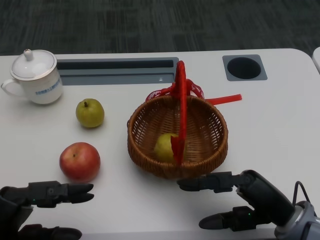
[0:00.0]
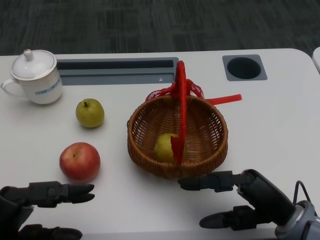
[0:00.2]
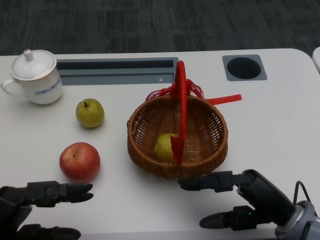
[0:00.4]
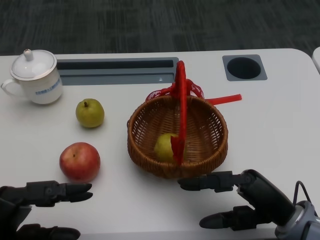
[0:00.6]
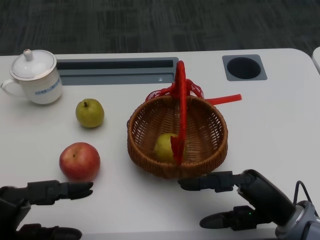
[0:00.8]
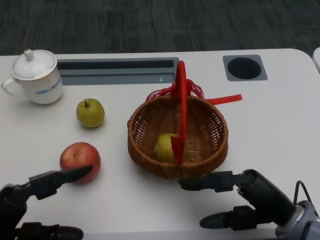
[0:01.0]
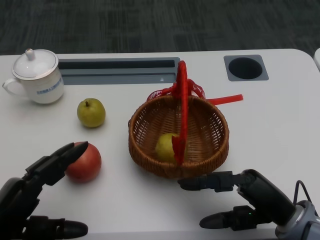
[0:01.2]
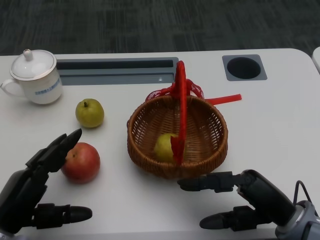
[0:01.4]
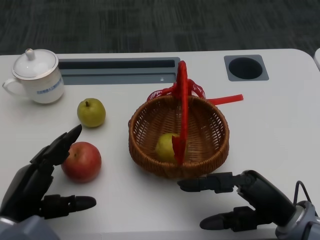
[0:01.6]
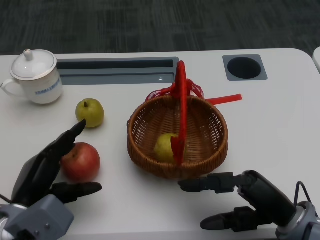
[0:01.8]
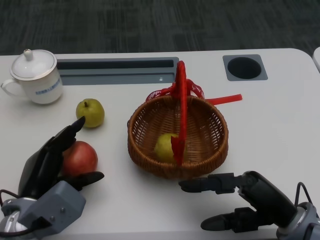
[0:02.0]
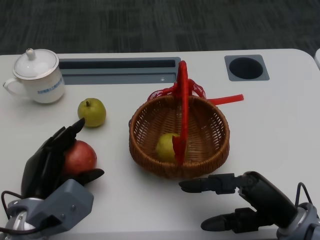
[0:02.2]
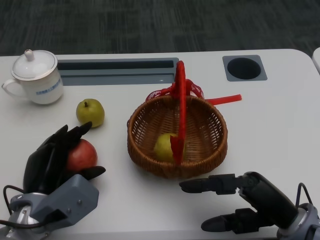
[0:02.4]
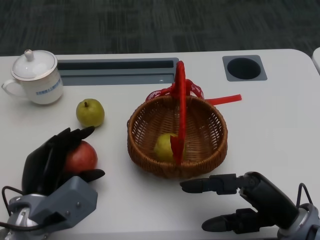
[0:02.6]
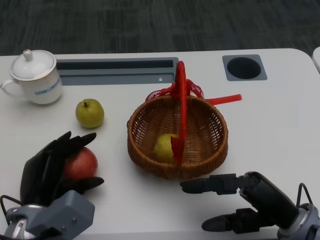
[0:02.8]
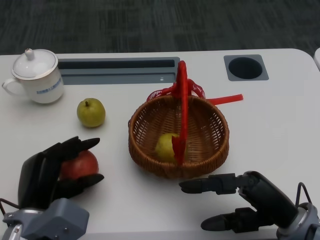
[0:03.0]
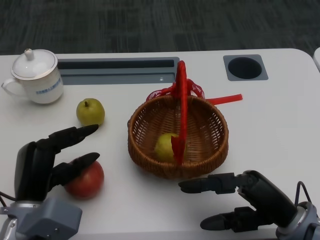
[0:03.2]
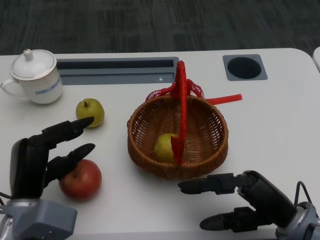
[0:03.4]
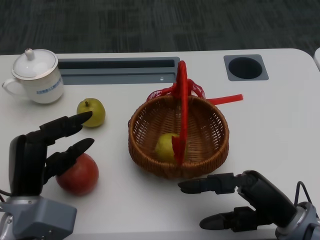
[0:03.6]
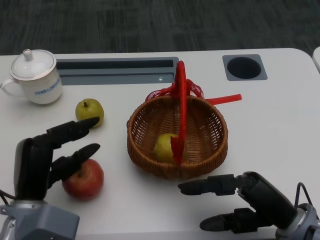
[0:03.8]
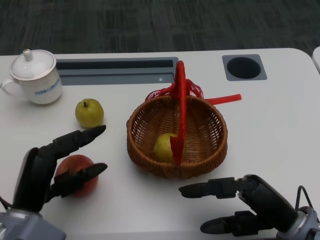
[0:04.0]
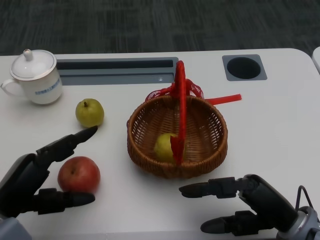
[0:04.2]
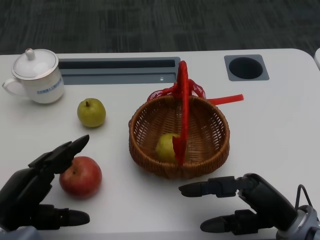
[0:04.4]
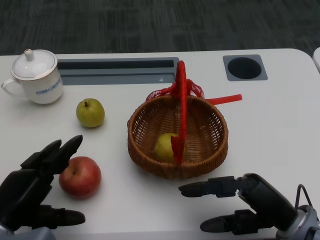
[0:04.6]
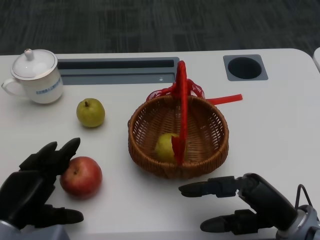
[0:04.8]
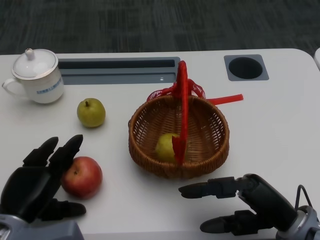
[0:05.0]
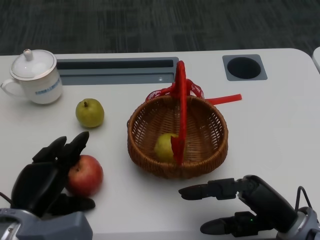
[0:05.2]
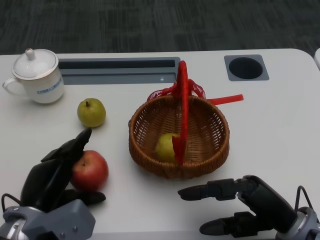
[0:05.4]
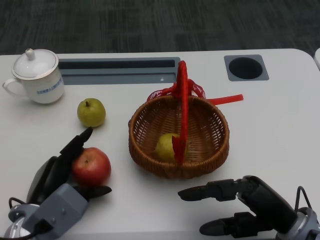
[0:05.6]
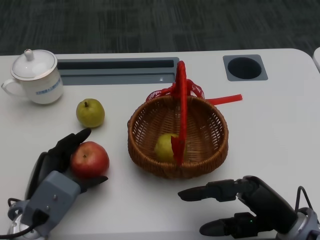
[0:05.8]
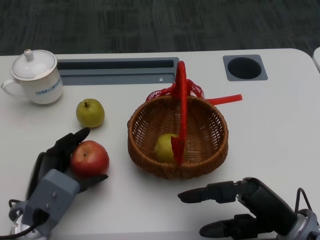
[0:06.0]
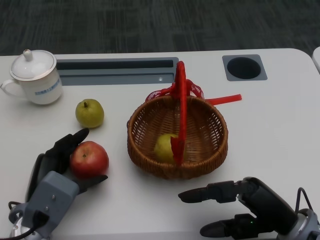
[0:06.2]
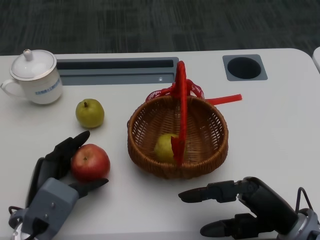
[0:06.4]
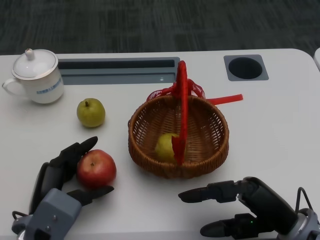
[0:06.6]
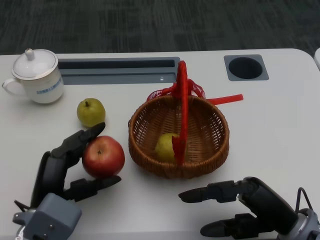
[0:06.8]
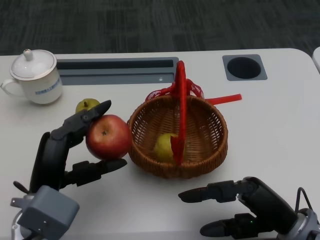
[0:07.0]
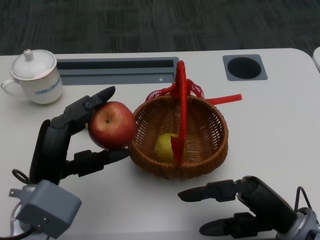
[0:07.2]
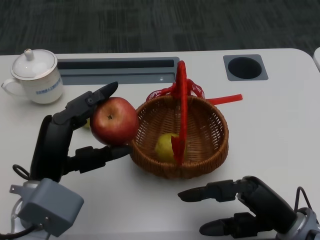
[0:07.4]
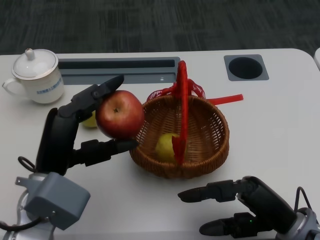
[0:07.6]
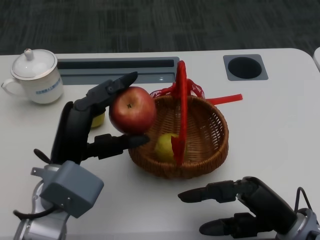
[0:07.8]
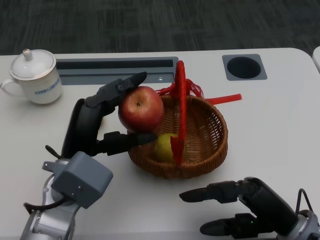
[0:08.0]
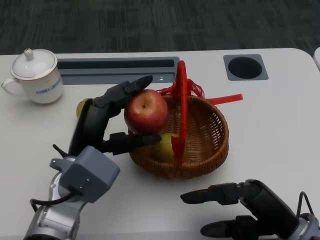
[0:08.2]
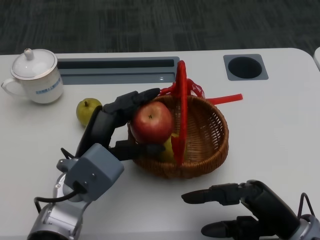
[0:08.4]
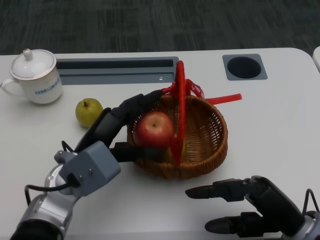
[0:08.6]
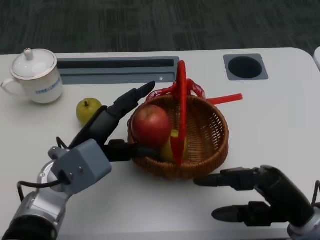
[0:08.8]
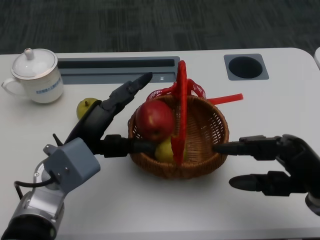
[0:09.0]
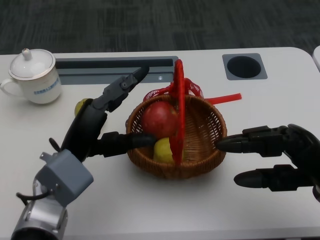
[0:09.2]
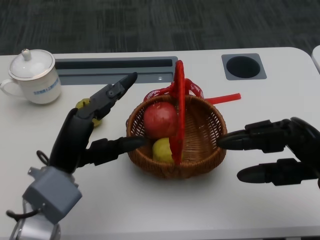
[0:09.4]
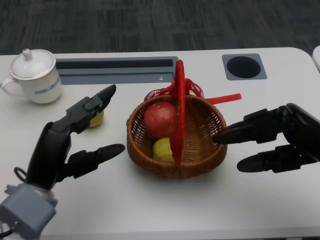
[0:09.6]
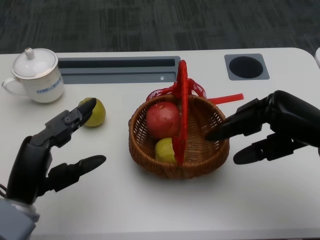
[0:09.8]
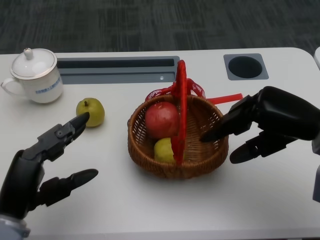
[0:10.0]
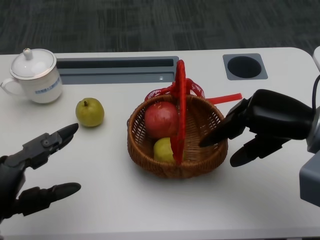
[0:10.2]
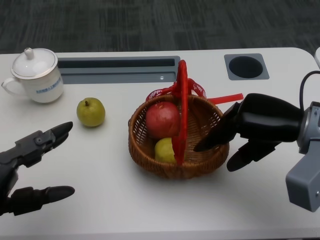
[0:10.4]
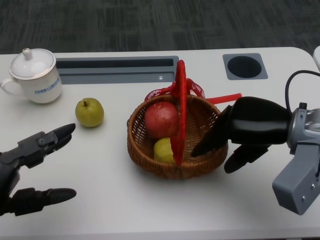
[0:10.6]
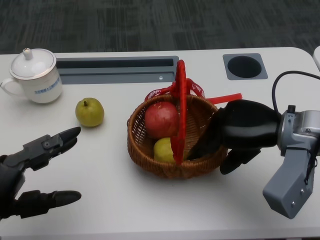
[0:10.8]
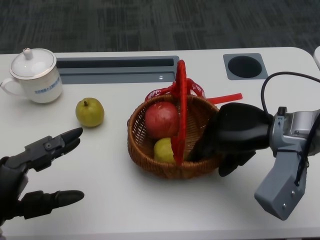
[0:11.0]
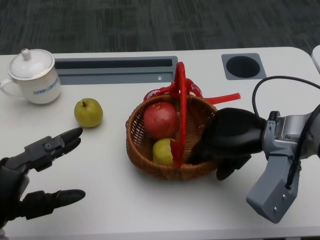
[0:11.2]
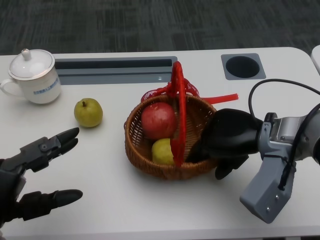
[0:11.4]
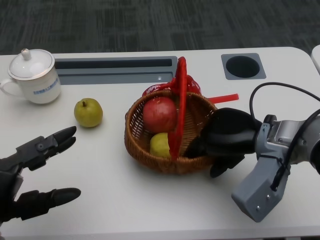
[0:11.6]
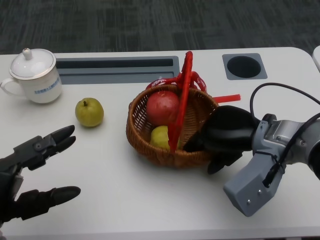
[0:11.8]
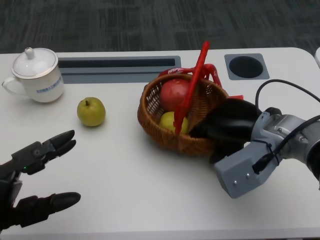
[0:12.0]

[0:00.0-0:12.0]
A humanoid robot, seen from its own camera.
Step, 0:00.8 to 0:04.6: Grasp the apple with the left gripper.
Step, 0:05.0 to 0:07.4: Place the apple into the basket with the left gripper.
Step, 0:07.6 to 0:09.0: Grasp the basket with the right gripper.
Step, 0:09.4 to 0:10.8: Move the basket to the front of the table with the right gripper.
0:03.0 to 0:04.4: The left hand travels to the left by about 5 cm.
0:04.4 to 0:06.0: The left hand travels to the right by approximately 5 cm.
0:06.0 to 0:07.6: The left hand is displaced upward by some 10 cm.
0:07.6 to 0:09.0: The right hand shifts by about 5 cm, while the left hand shifts some 5 cm forward.
0:09.0 to 0:10.4: The right hand goes approximately 10 cm forward and upward. Meanwhile the left hand goes about 15 cm to the left and backward.
0:10.4 to 0:12.0: The right hand shifts approximately 5 cm to the left.

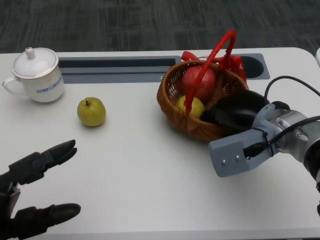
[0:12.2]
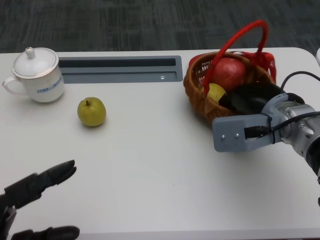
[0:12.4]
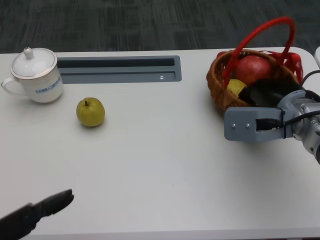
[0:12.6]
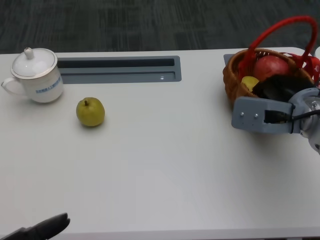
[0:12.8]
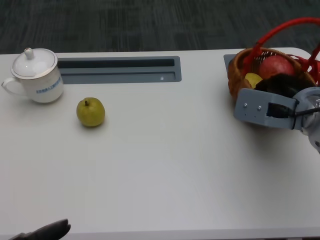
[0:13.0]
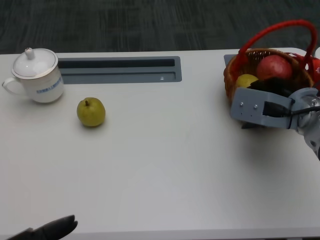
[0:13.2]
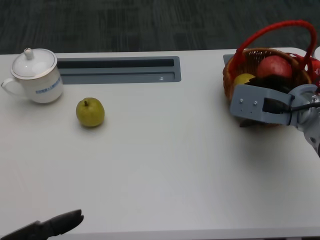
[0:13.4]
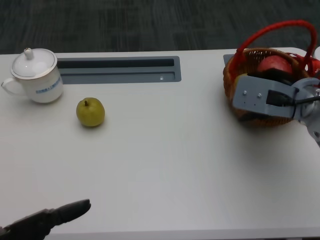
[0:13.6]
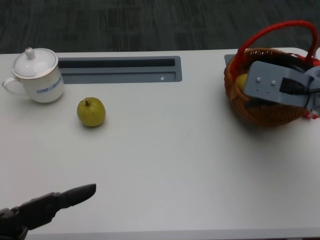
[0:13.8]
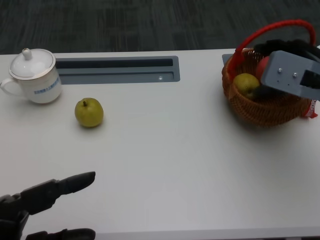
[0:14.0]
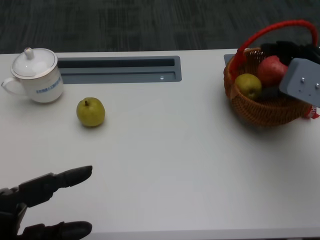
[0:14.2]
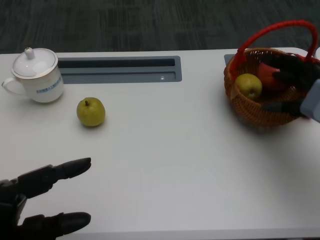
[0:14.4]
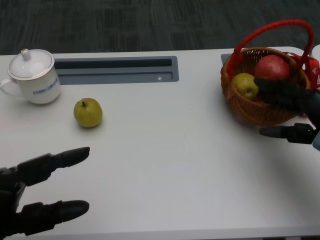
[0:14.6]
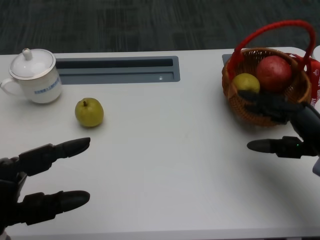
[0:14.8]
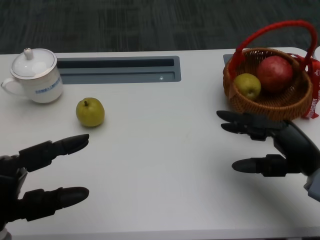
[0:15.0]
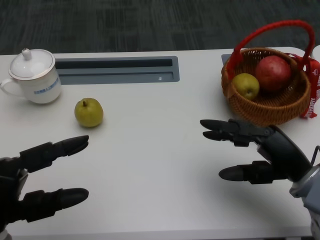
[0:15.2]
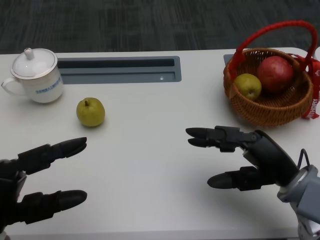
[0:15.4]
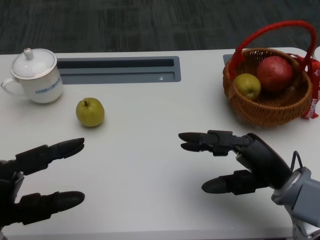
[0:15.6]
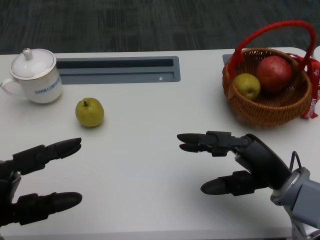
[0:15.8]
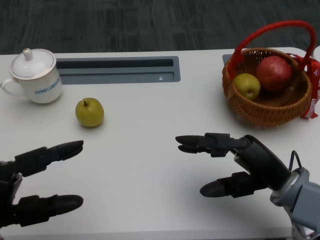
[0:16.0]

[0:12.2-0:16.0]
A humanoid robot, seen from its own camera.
0:12.2 to 0:13.4: The left hand shifts some 10 cm backward.
0:13.4 to 0:14.8: The right hand moves backward and to the right, some 10 cm. The left hand goes approximately 10 cm forward.
0:14.8 to 0:16.0: The right hand goes some 5 cm to the left.

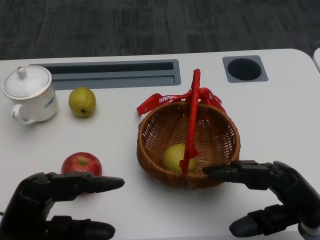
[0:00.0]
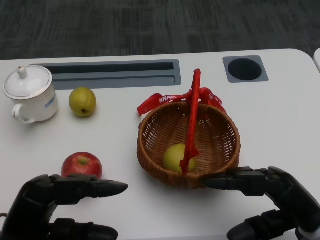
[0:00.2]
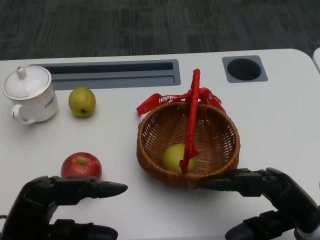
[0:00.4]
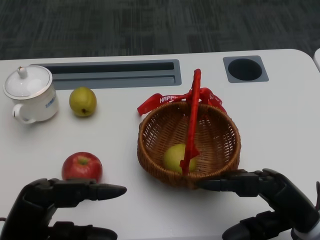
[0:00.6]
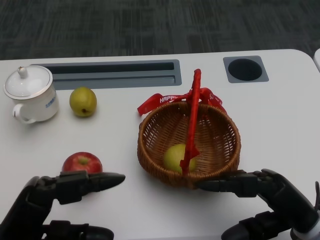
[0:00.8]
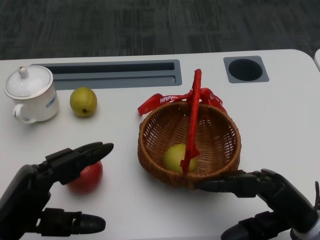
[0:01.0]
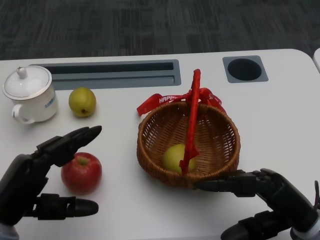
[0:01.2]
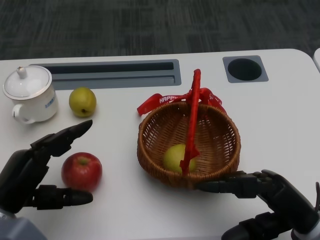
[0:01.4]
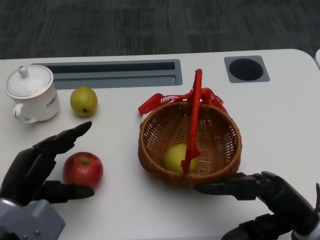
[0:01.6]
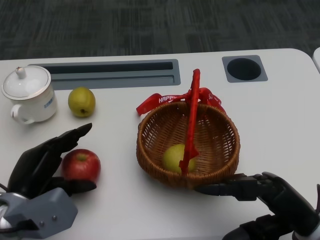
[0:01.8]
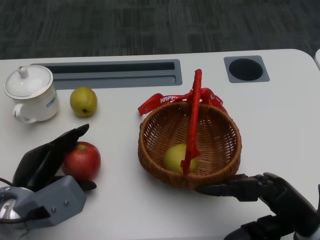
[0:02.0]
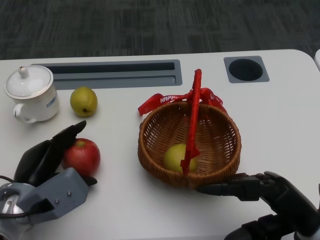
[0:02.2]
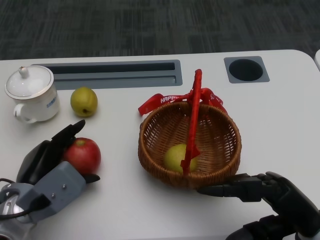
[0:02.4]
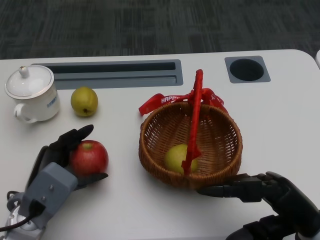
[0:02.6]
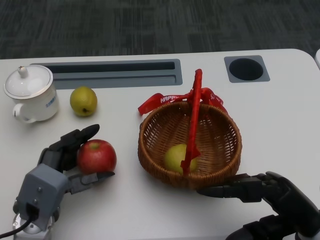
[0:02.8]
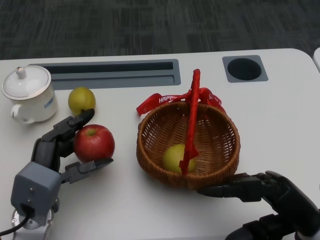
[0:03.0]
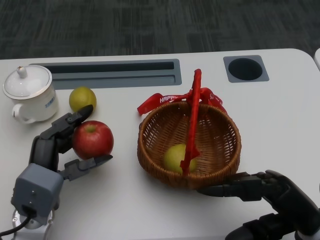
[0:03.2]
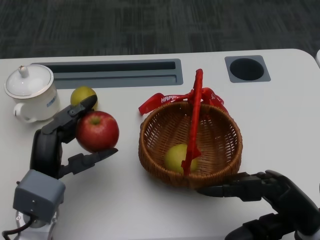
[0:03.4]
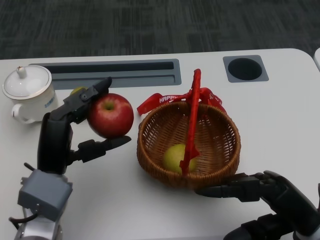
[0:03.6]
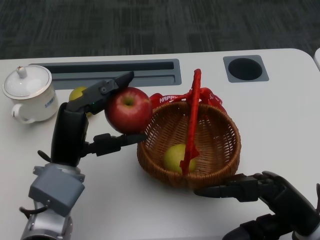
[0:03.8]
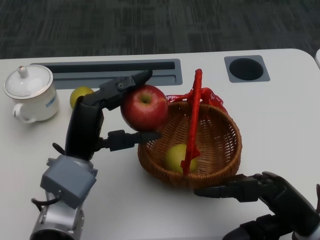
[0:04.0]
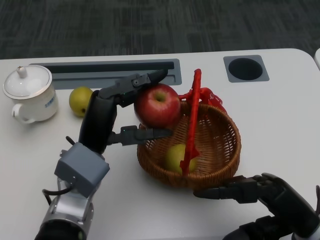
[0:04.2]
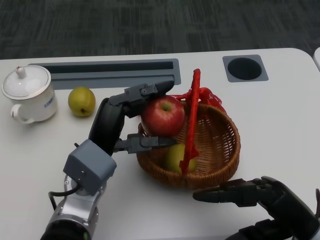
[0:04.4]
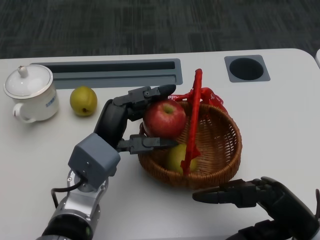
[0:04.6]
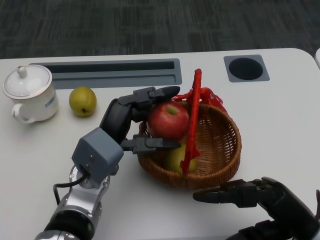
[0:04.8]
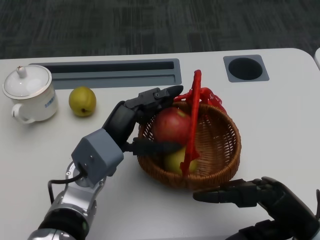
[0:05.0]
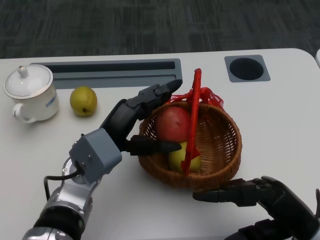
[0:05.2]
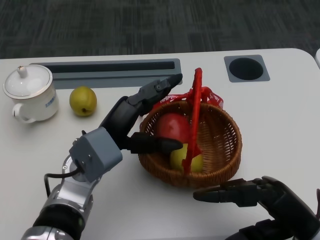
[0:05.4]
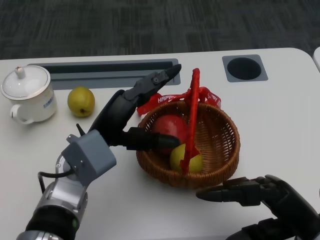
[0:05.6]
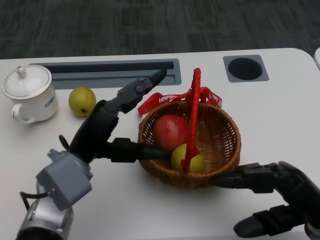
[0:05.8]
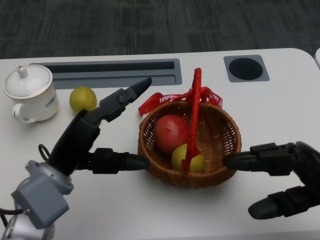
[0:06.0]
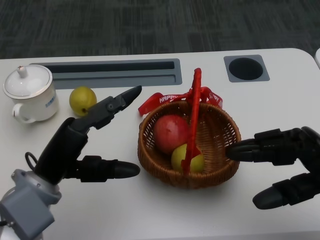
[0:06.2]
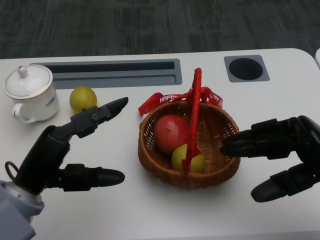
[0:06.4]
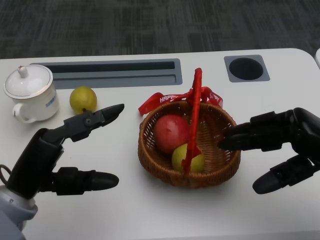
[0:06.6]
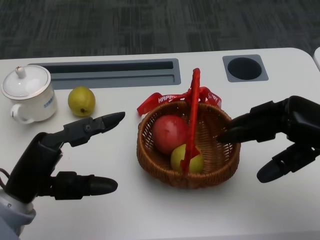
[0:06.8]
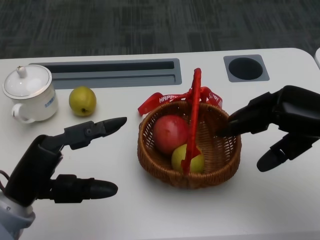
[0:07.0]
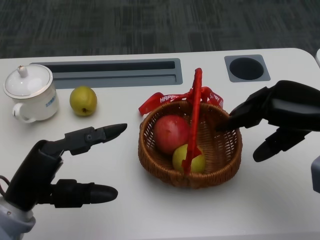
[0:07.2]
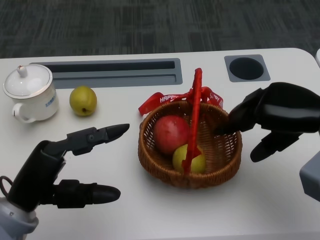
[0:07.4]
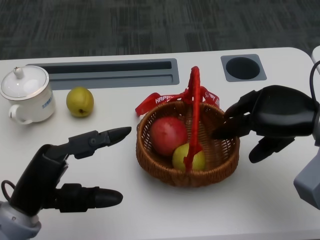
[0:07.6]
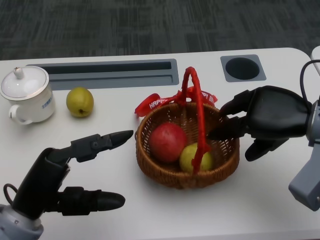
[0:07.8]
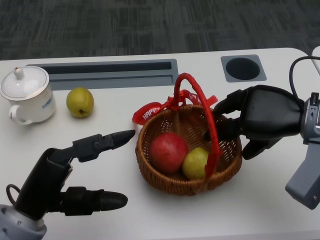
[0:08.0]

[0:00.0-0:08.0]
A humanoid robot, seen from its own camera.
Step, 0:00.6 to 0:02.0: Grasp the apple with the left gripper.
Step, 0:02.4 to 0:04.2: Place the apple into the basket with the left gripper.
Step, 0:04.4 to 0:07.0: Grasp the basket with the right gripper.
0:01.6 to 0:03.2: The left hand ends up roughly 5 cm from where it was.
0:03.2 to 0:04.8: The left hand is displaced to the right by some 10 cm.
0:04.8 to 0:06.4: The left hand travels to the left and backward by some 10 cm. The right hand moves upward and forward, about 10 cm.
0:06.4 to 0:08.0: The right hand shifts about 10 cm forward.
